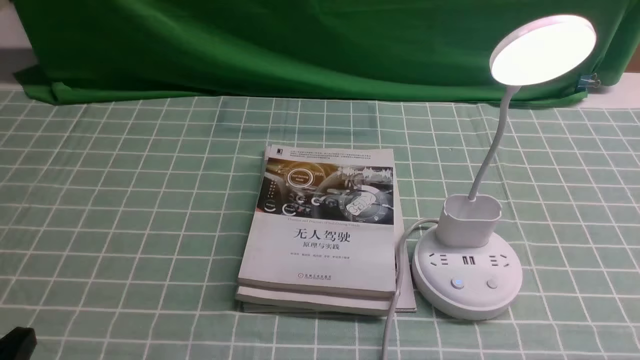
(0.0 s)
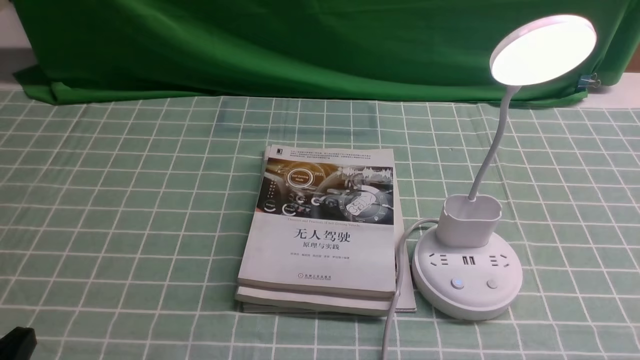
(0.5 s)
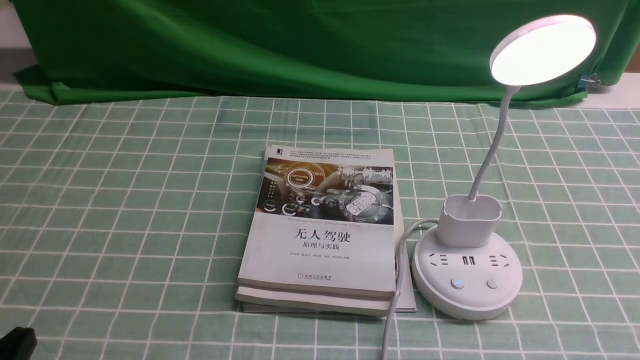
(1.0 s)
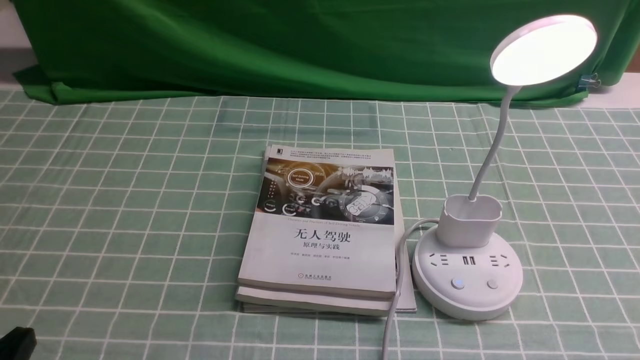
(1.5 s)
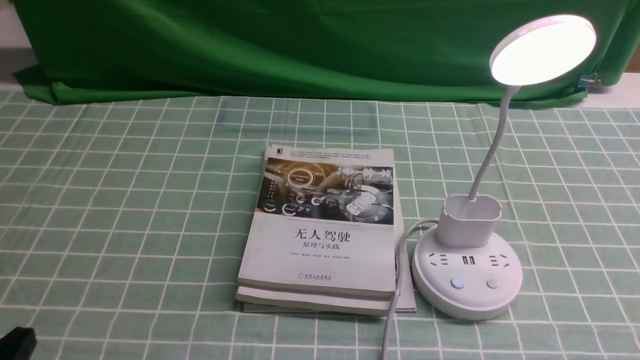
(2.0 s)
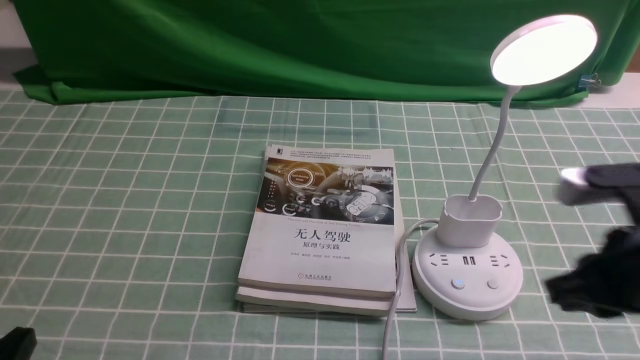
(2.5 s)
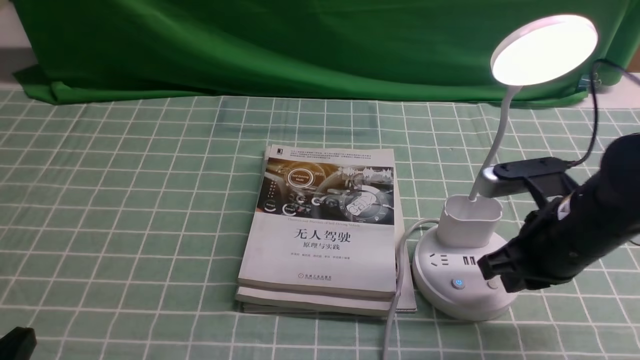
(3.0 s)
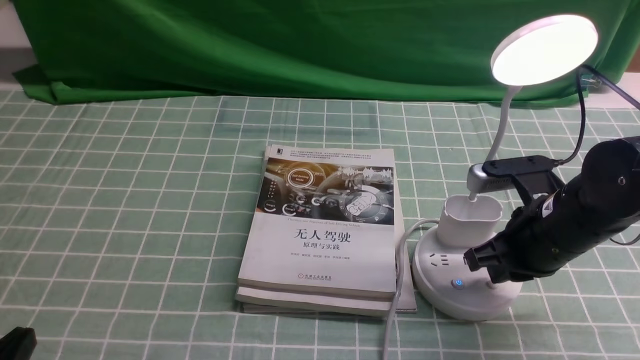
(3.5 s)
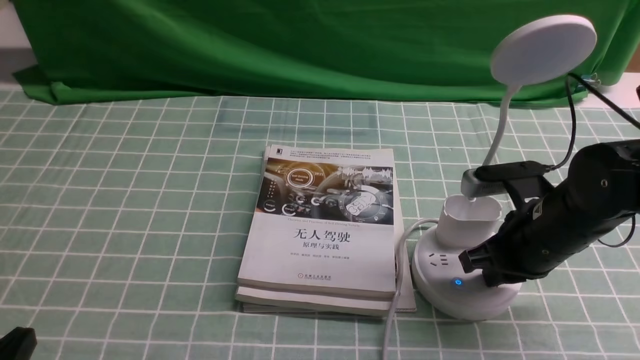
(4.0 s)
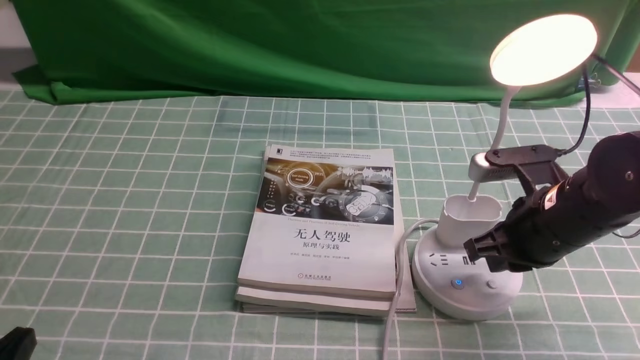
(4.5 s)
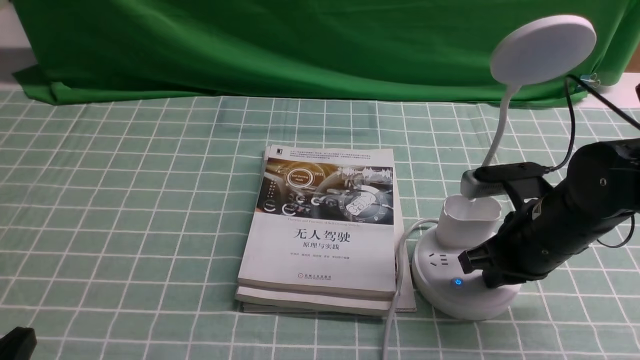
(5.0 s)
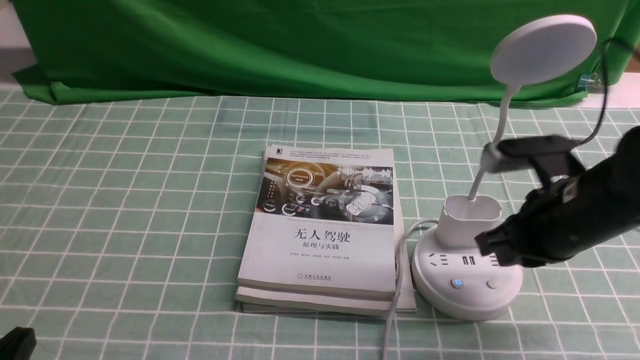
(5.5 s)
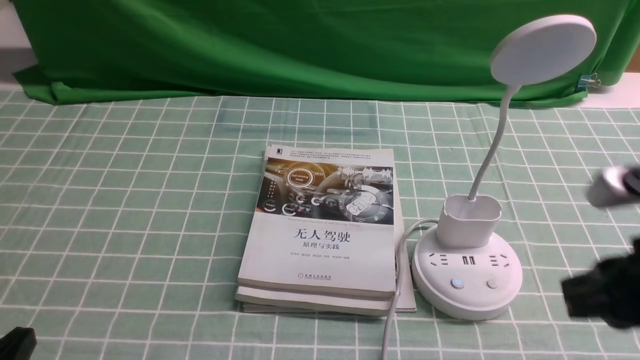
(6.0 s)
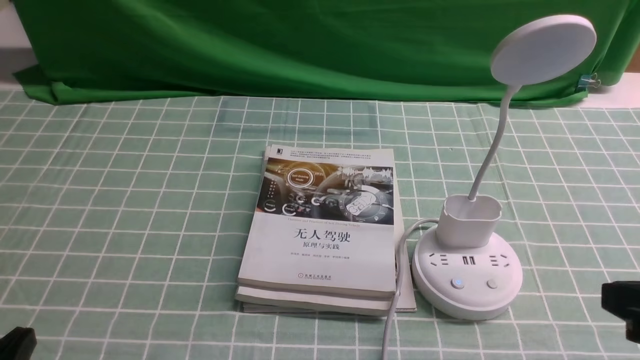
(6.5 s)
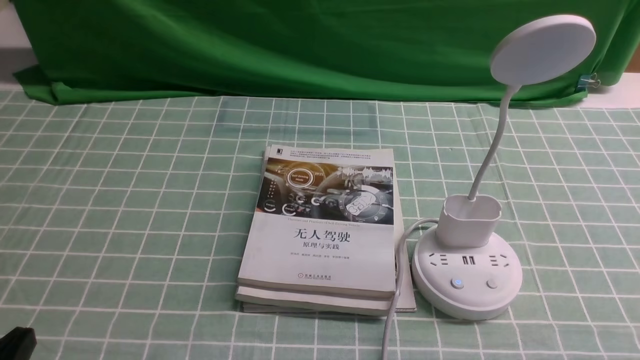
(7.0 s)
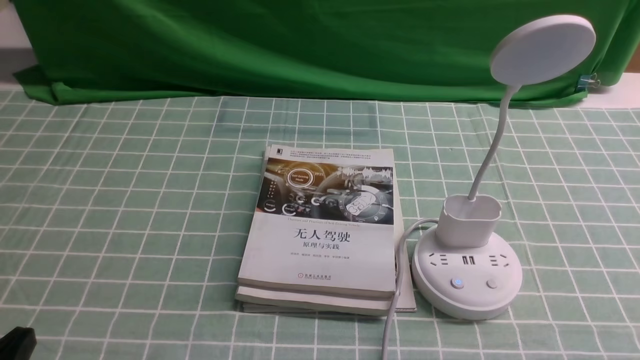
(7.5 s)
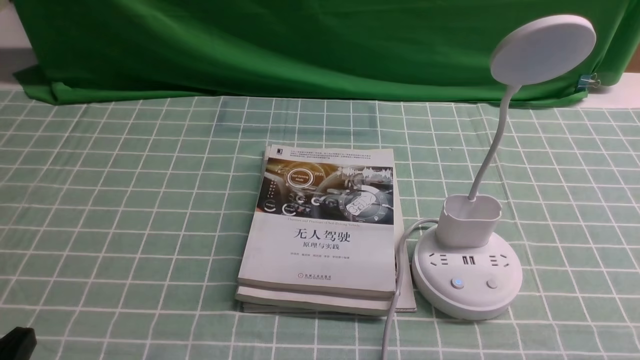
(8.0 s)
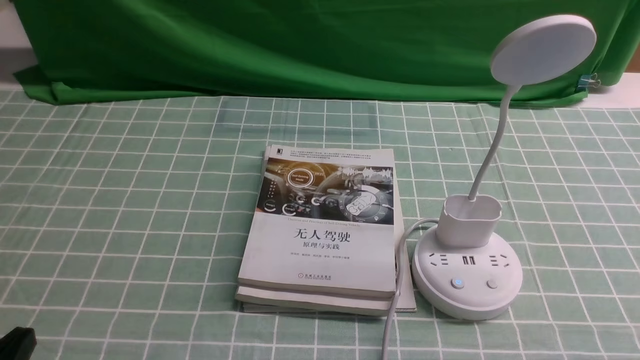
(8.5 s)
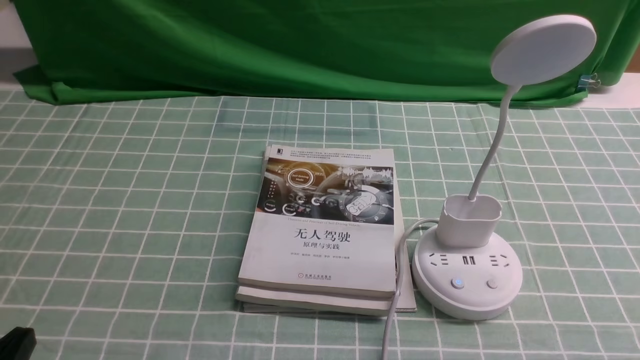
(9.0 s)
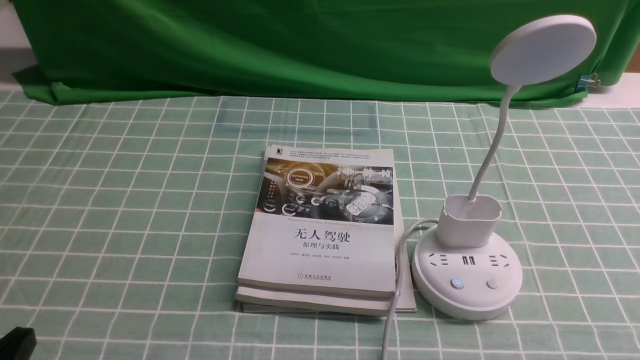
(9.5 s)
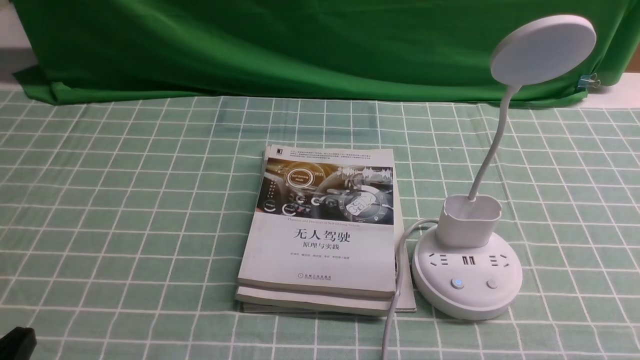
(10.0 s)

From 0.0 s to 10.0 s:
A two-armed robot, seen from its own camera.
Task of the whole recording: turn off the desk lamp on the blue coffee tablecloth by hand.
Step, from 0.0 s to 5.0 s: use the right arm to press the button switch on the lamp holder.
From 2.0 s to 4.0 s: The right gripper heads forward, covering some 20 cm.
From 4.0 s to 6.0 s: The right gripper goes about 15 cm backward and upward.
From 6.0 s to 8.0 s: The right gripper travels backward, downward and to the right by approximately 15 cm.

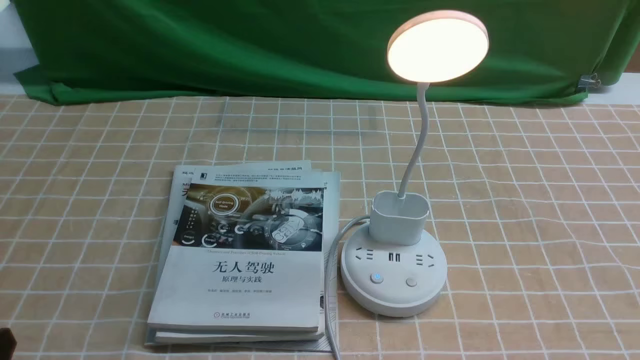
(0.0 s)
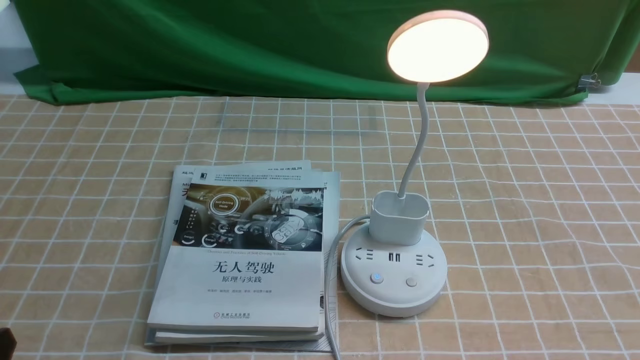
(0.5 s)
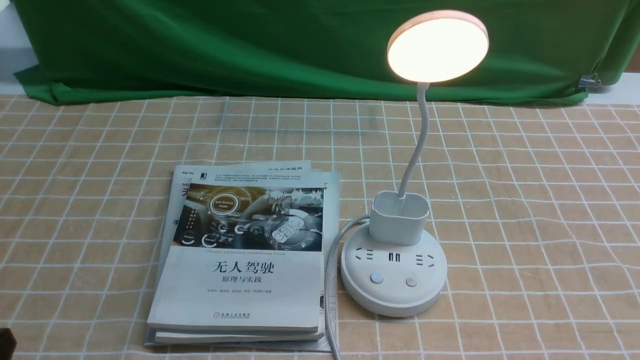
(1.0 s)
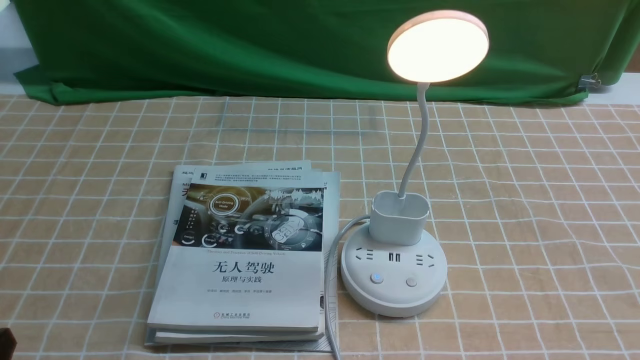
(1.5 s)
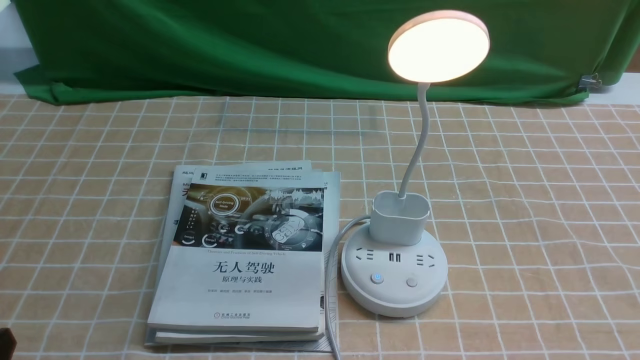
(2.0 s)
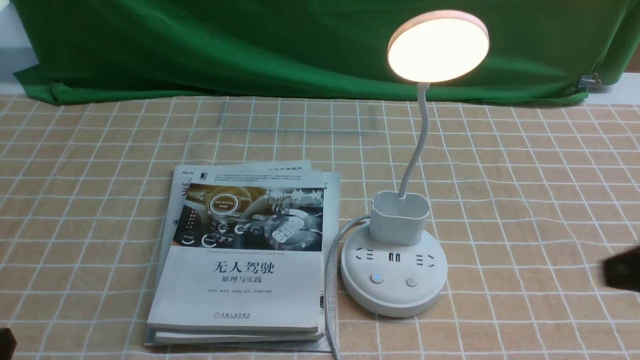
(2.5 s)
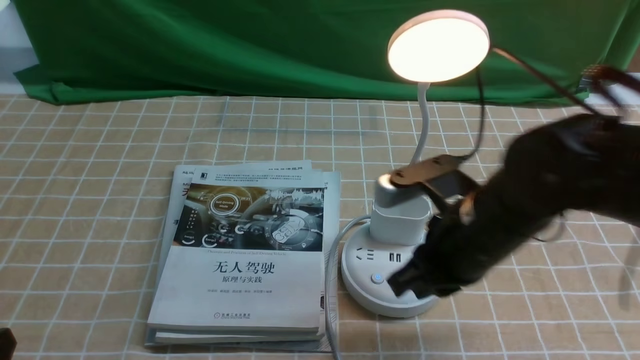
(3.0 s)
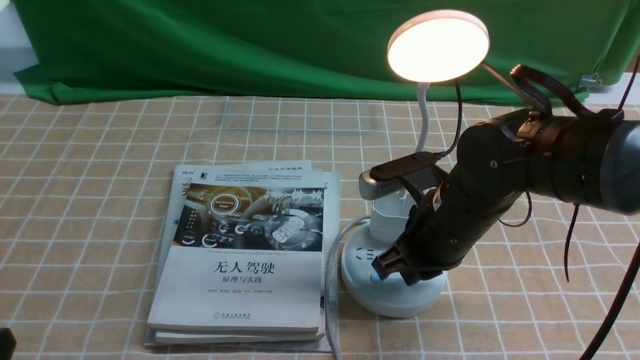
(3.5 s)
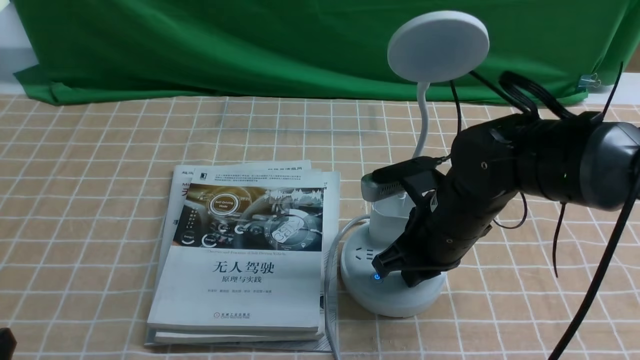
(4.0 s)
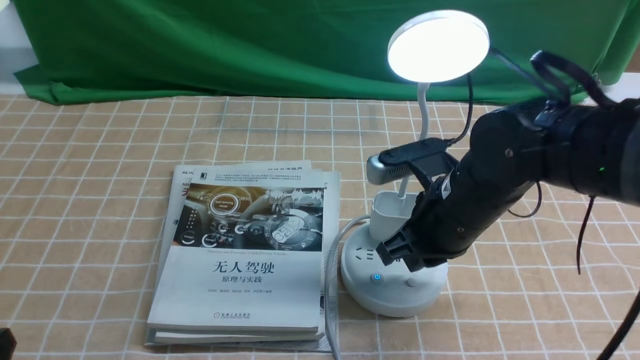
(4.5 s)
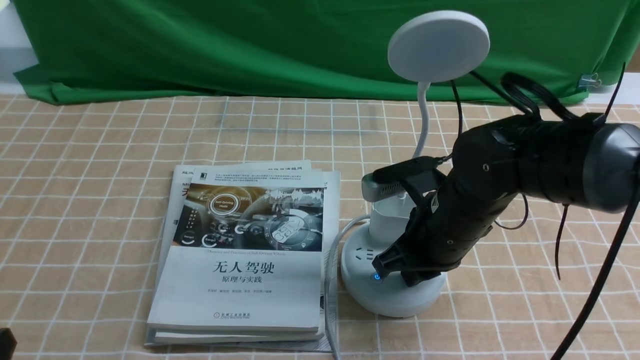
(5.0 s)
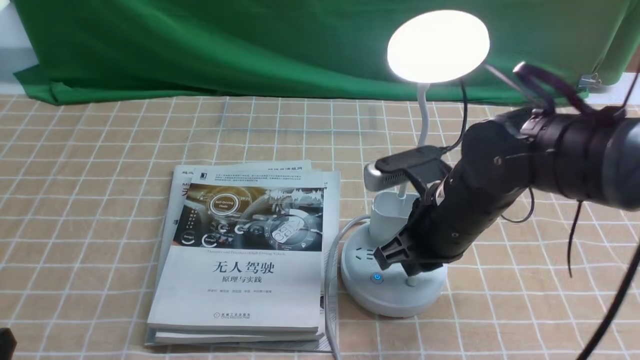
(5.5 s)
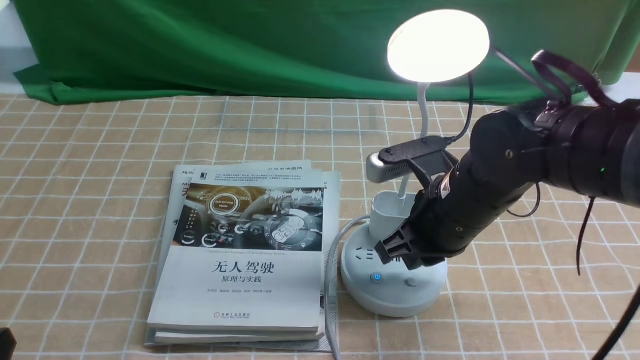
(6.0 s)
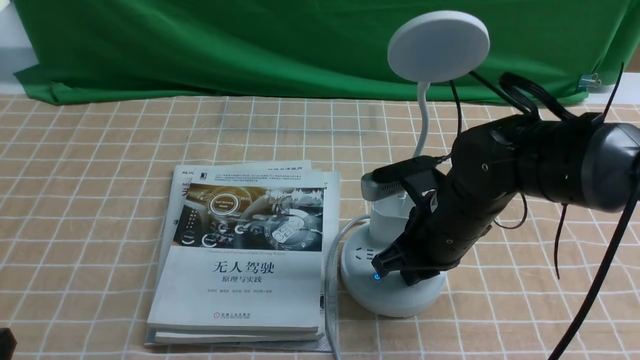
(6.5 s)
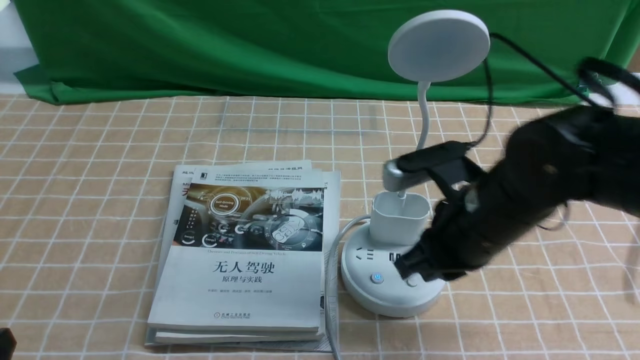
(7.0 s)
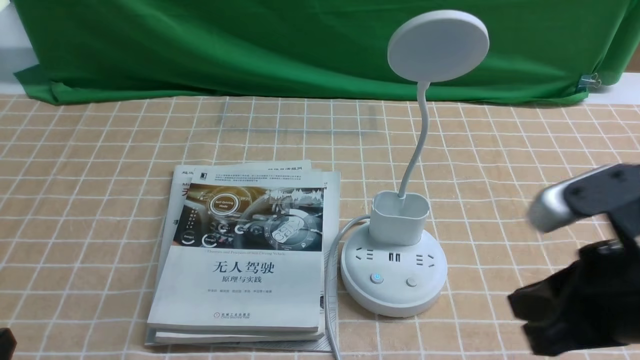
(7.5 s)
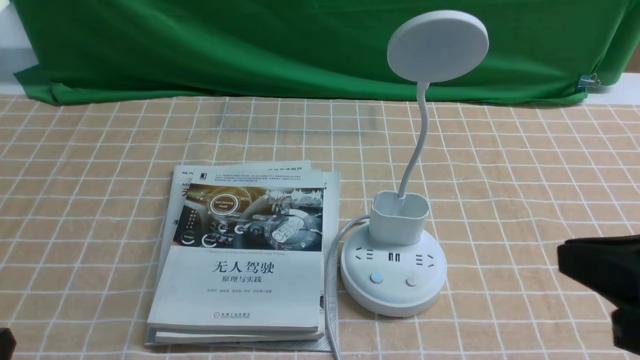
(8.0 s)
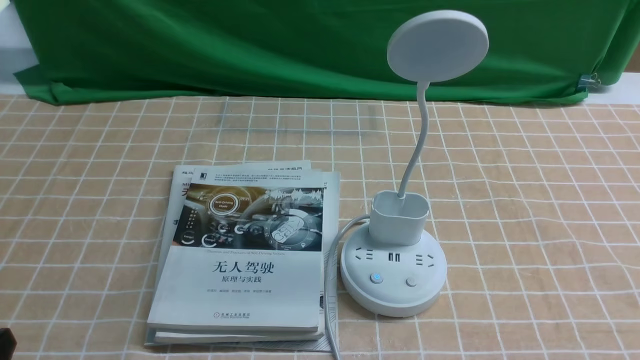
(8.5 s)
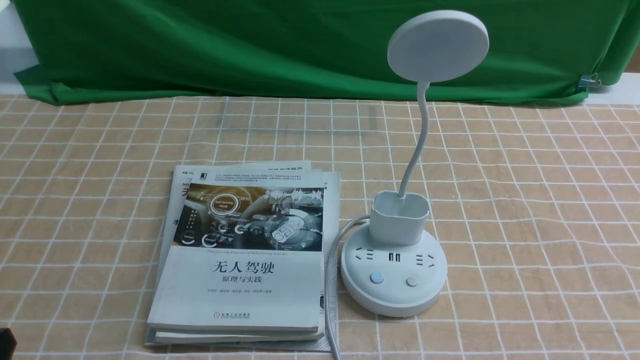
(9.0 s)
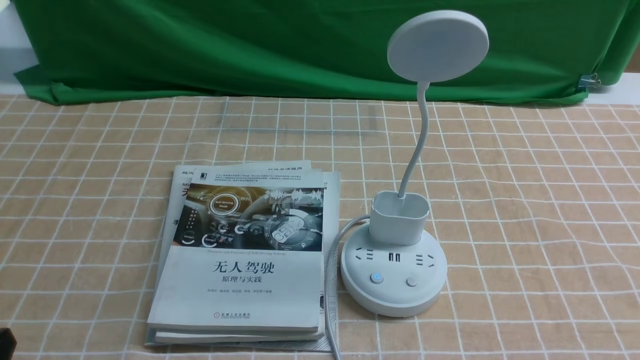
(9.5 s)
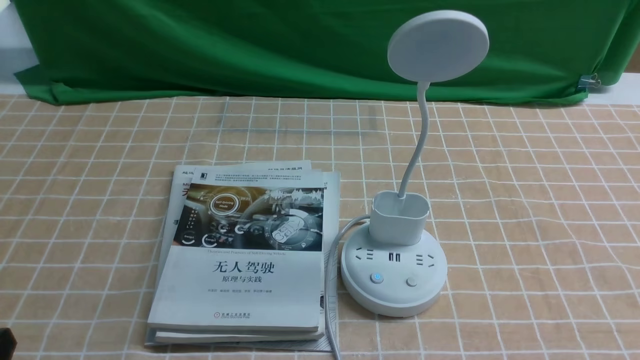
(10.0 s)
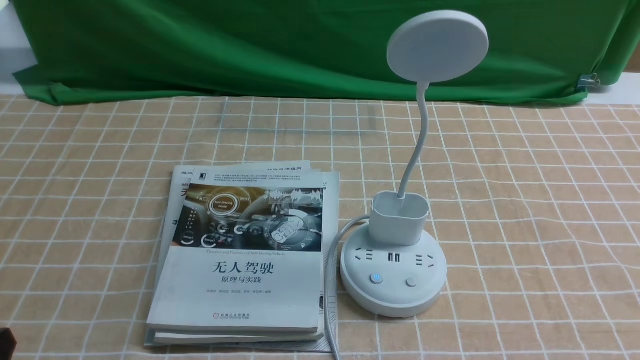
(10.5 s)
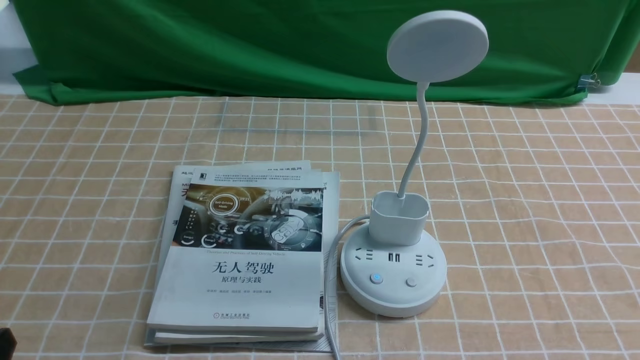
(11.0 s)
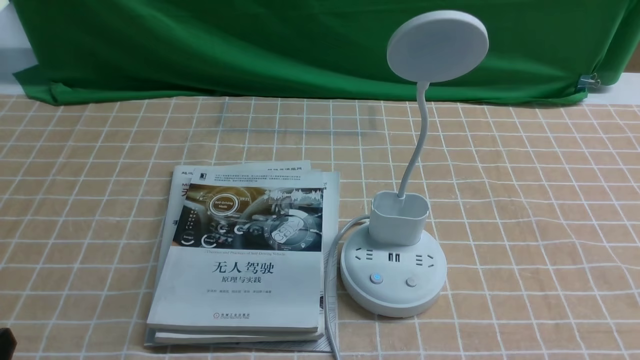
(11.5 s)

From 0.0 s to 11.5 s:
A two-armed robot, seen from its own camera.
Task of the whole recording: turn off the desk lamp on the light coffee tablecloth by hand.
Step, from 0.0 s to 6.5 s: use the right arm to press the button switch on the lamp holder.
From 2.0 s to 4.0 s: The right gripper shifts some 30 cm forward and to the left.
From 6.0 s to 7.5 s: The right gripper travels backward, upward and to the right by about 20 cm.
From 7.5 s to 9.5 s: The right gripper moves downward, backward and to the right, some 15 cm.
